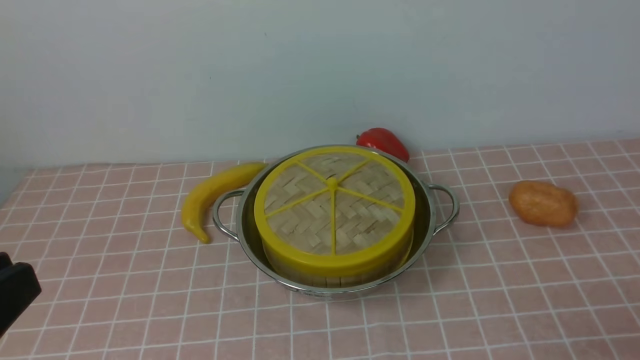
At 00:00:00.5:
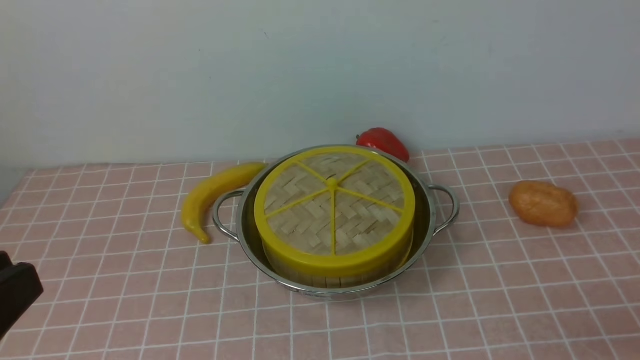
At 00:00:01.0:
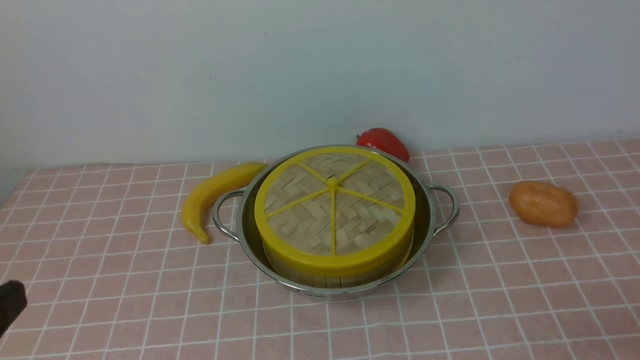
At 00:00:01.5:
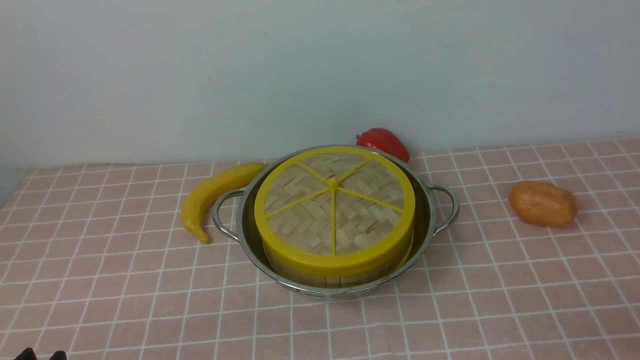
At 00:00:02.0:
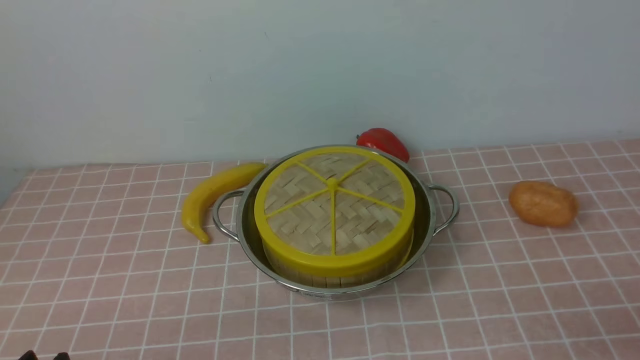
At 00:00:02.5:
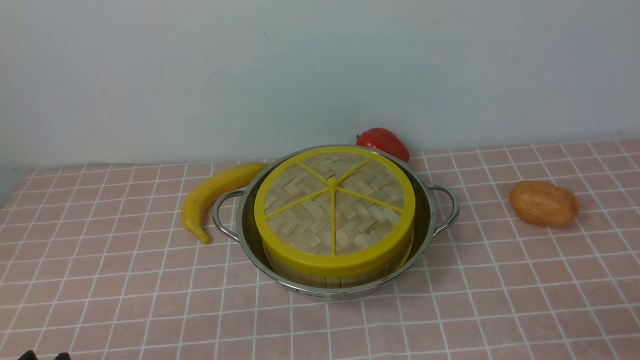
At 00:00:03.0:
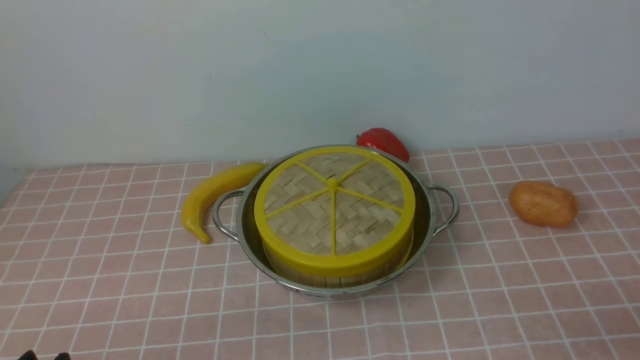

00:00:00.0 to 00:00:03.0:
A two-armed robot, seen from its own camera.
Task of the whole recording: place the steamer in the pot on the pink tablecloth, and put the lid on the steamer.
00:00:00.0 to 00:00:01.5: The left gripper is displaced downward by roughly 15 cm.

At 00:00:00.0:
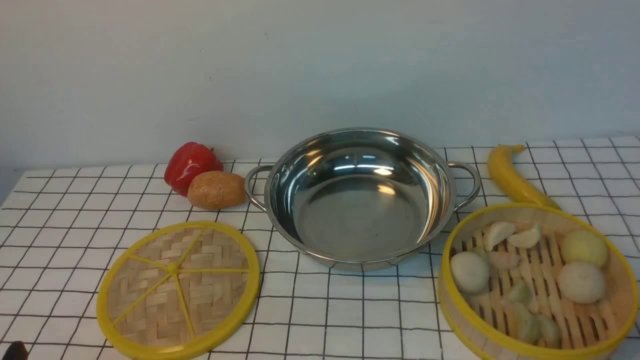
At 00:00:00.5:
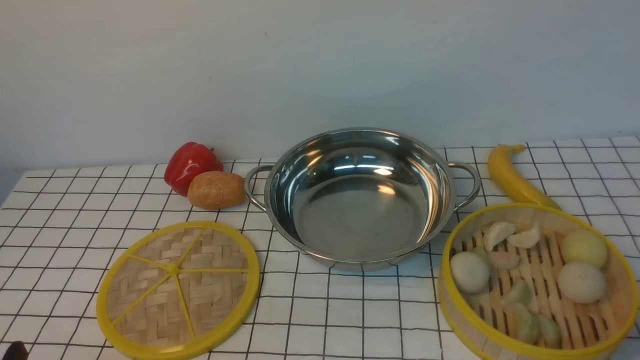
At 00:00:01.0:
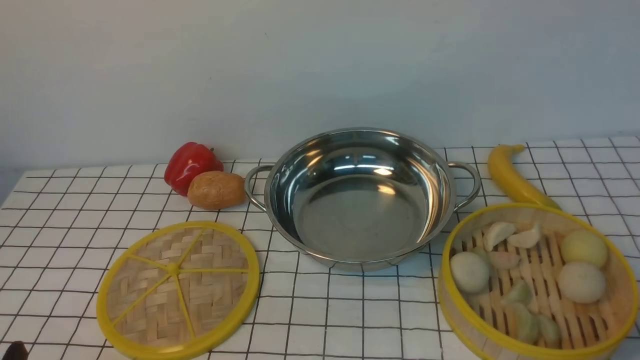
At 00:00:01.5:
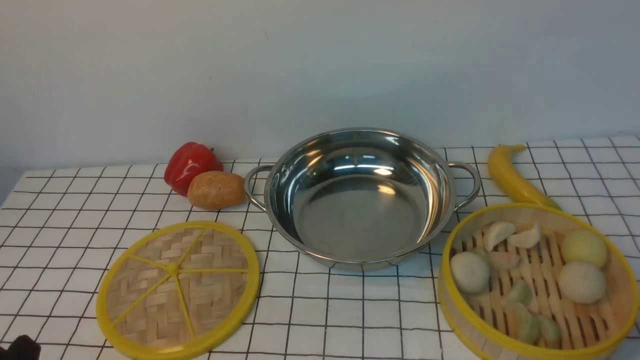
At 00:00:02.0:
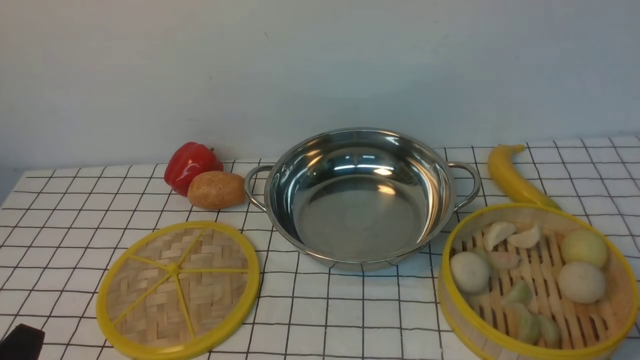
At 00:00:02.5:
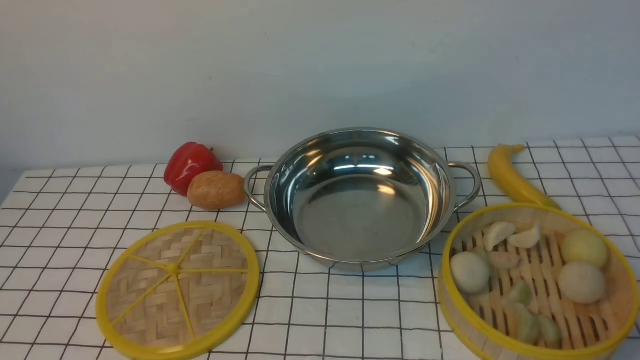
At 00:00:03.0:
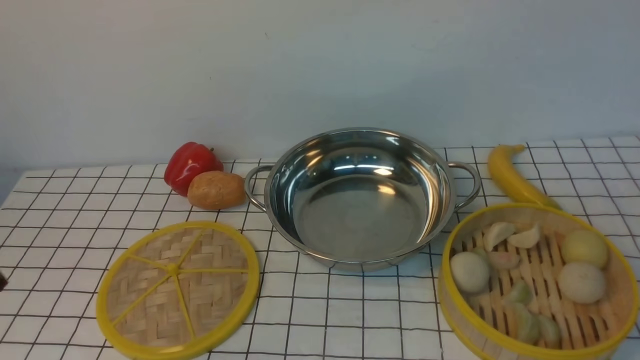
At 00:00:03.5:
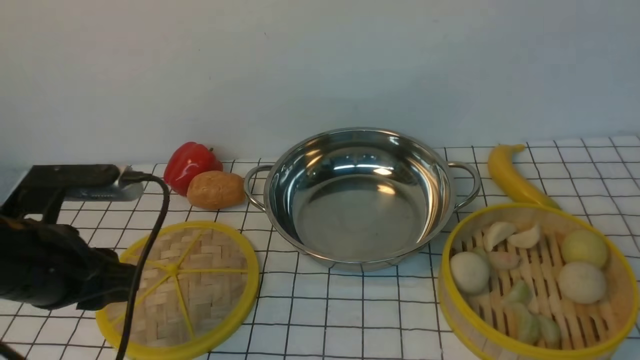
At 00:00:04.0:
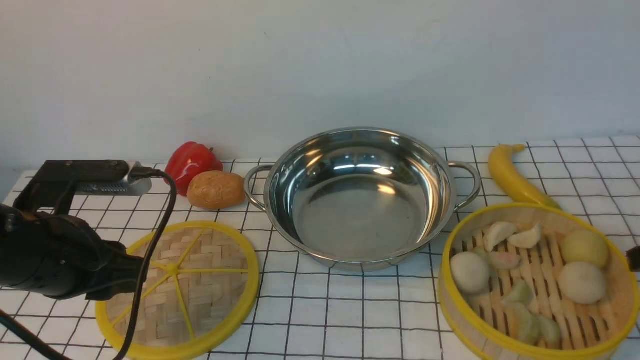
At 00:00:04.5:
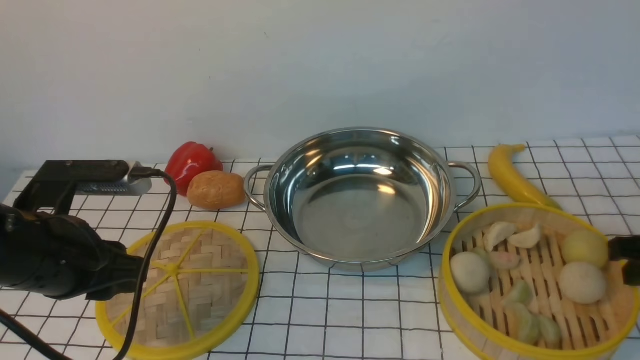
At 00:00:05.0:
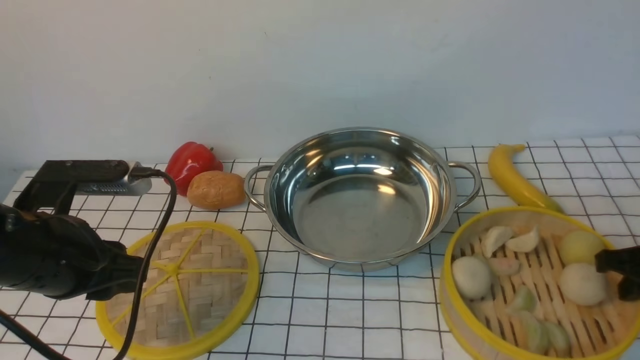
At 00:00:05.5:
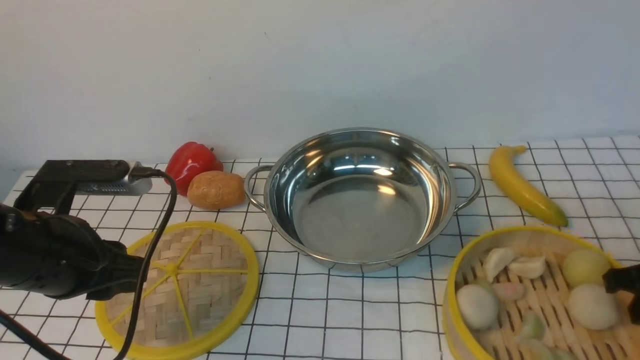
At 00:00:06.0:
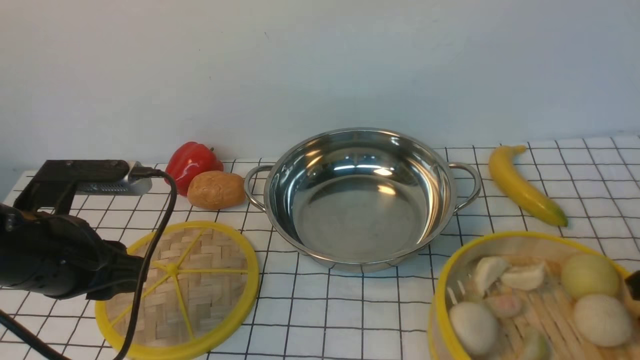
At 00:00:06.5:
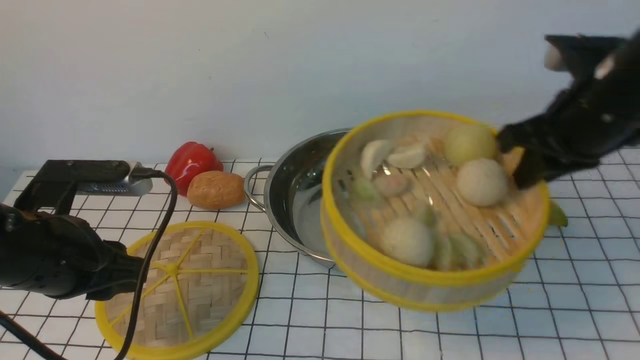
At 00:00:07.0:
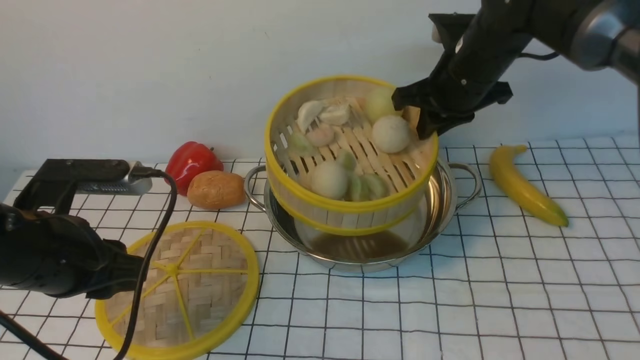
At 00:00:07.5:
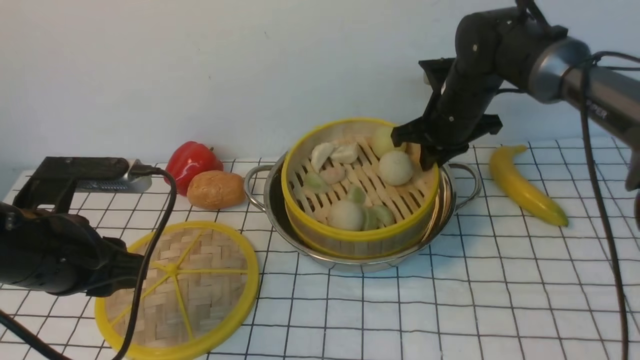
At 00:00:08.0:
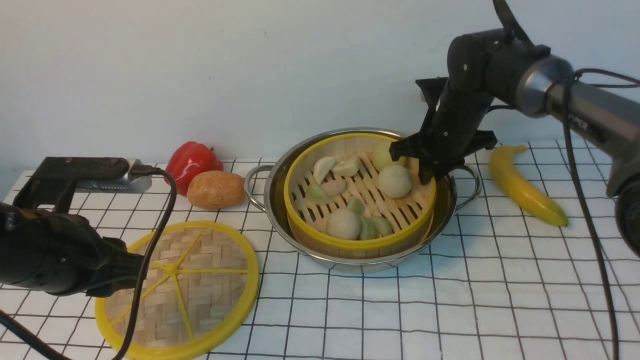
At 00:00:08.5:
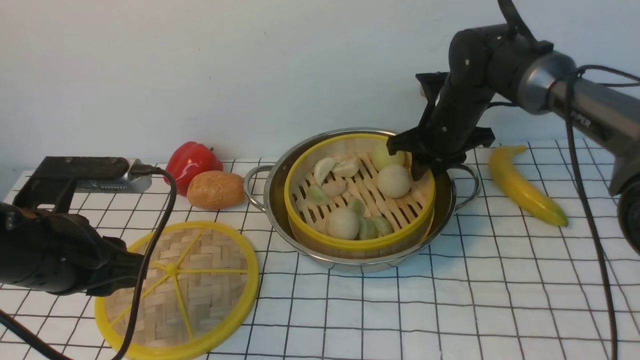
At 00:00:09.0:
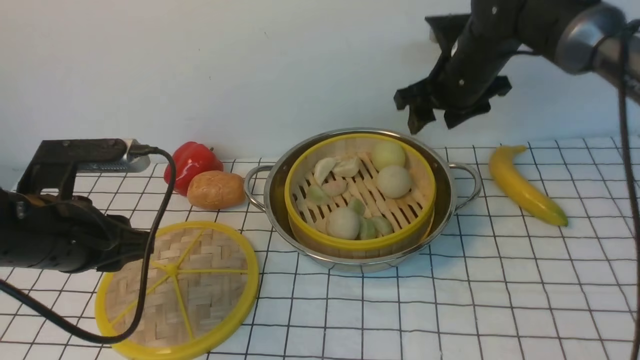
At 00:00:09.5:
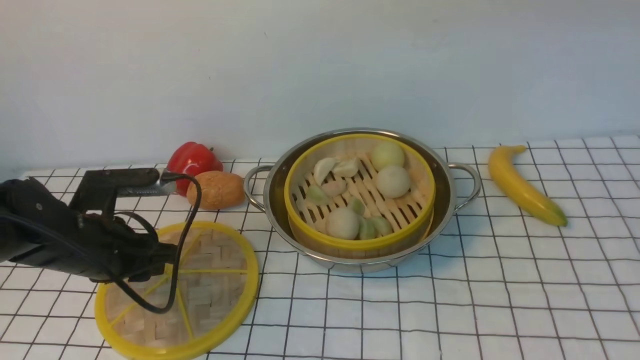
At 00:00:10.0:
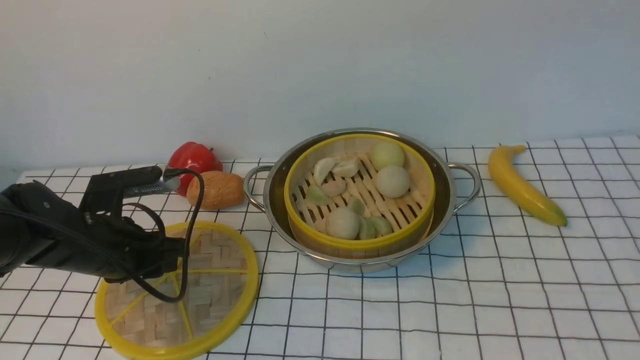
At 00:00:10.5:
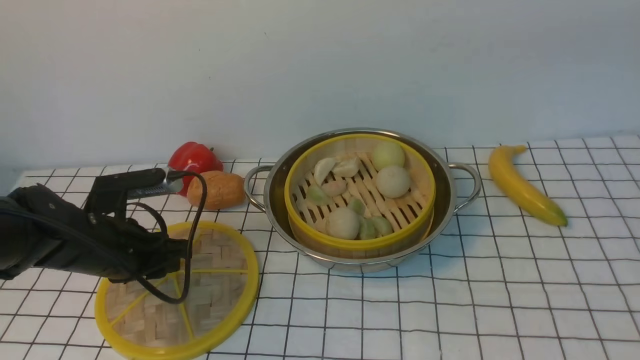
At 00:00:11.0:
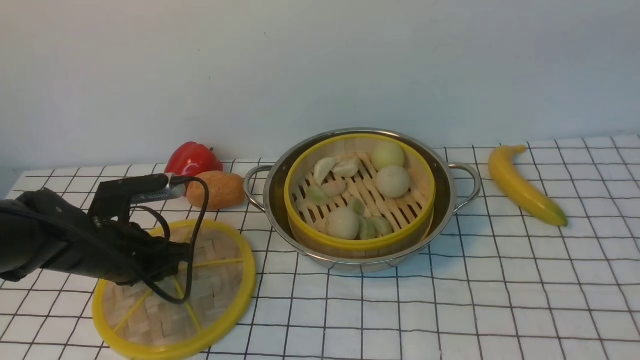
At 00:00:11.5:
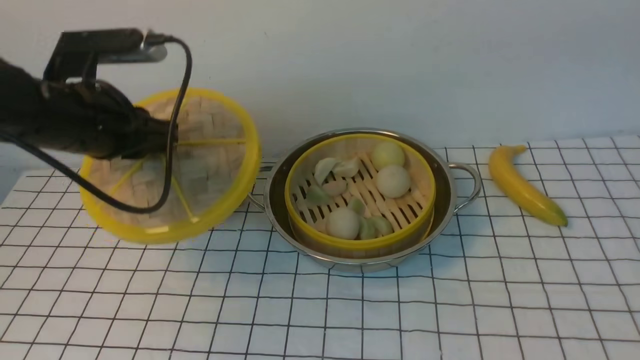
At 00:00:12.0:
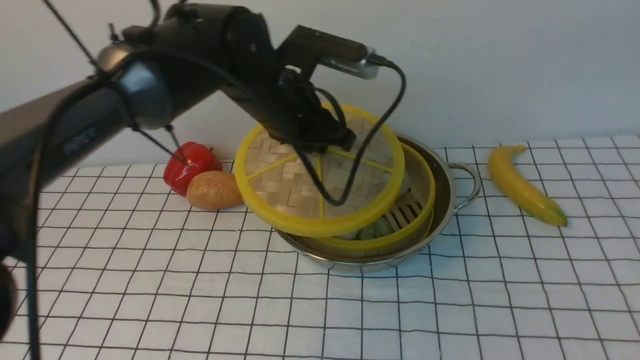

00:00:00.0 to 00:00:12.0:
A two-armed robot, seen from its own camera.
Task of the whole recording: place the steamer in the pot on the white tablecloth, and put the lid on the steamer.
Step, 00:00:00.0 to 00:00:05.5: use the right arm to lift the steamer closest to it.
Step, 00:00:06.0 to 00:00:08.5: use the right arm to put the steamer into the iron steamer pot in the middle.
Step, 00:00:09.0 to 00:00:11.0: use the left arm to lift the lid of the steamer.
00:00:02.0 to 00:00:04.0: The left gripper moves forward, about 20 cm.
00:00:06.0 to 00:00:08.0: The right gripper heads forward and to the left, covering roughly 30 cm.
00:00:08.0 to 00:00:10.0: The right gripper is displaced upward and backward by about 50 cm, and opens, while the left gripper is displaced downward and forward by roughly 10 cm.
00:00:10.0 to 00:00:12.0: The left gripper moves to the right, upward and forward, approximately 25 cm.

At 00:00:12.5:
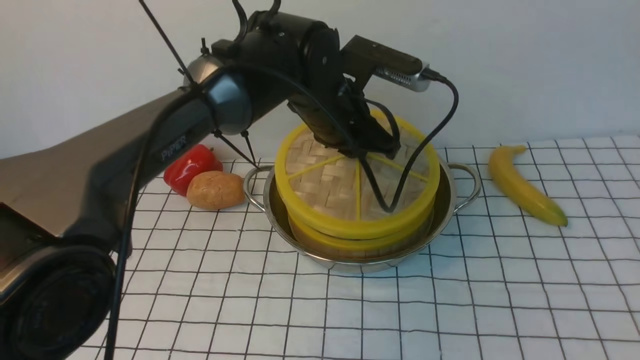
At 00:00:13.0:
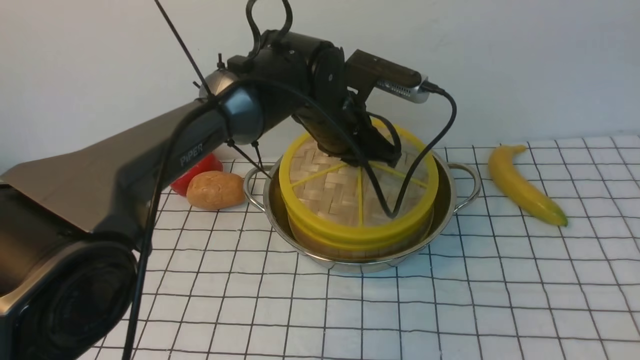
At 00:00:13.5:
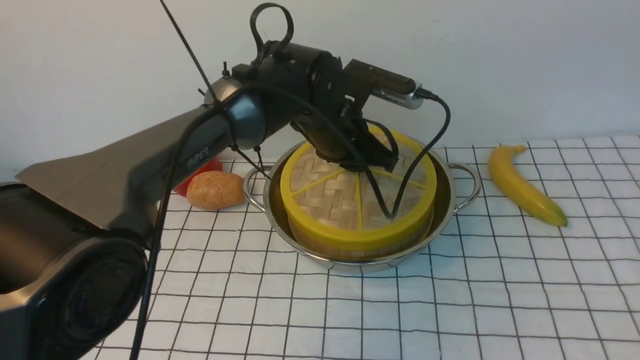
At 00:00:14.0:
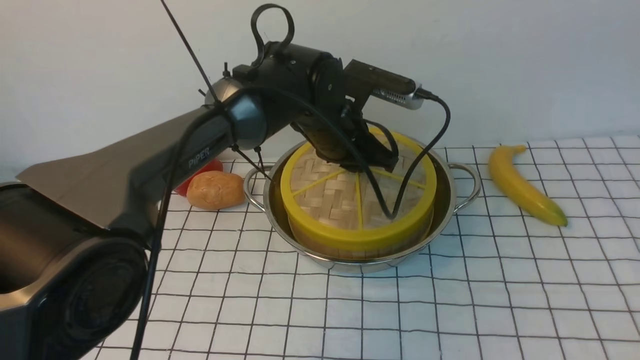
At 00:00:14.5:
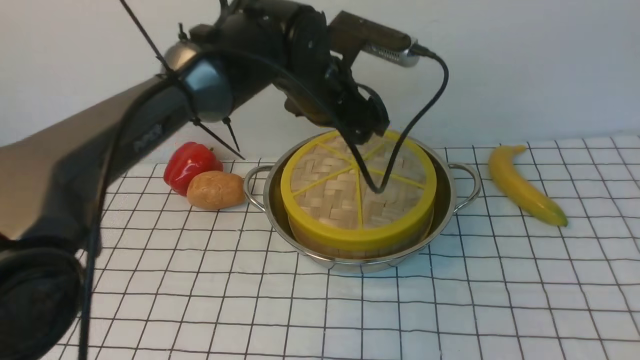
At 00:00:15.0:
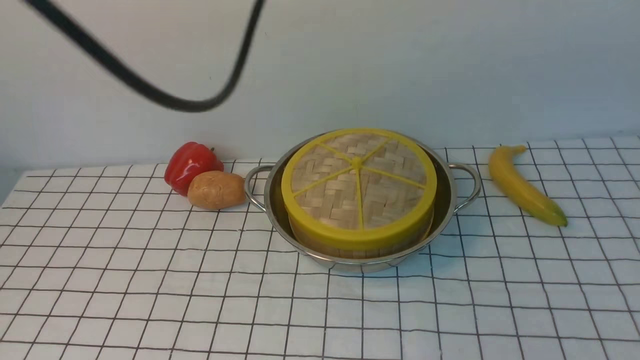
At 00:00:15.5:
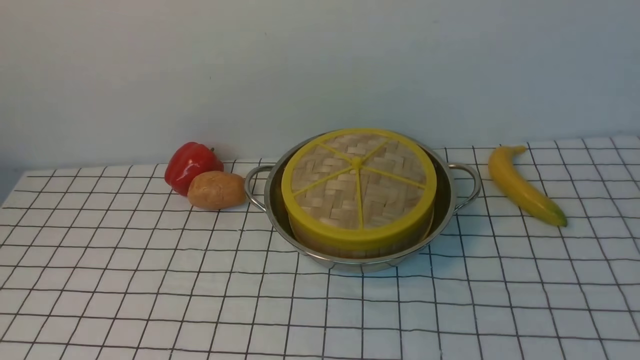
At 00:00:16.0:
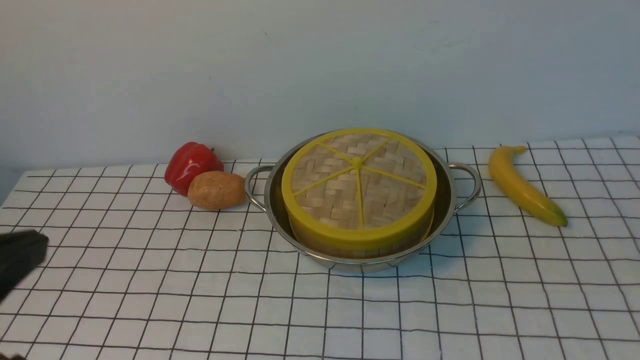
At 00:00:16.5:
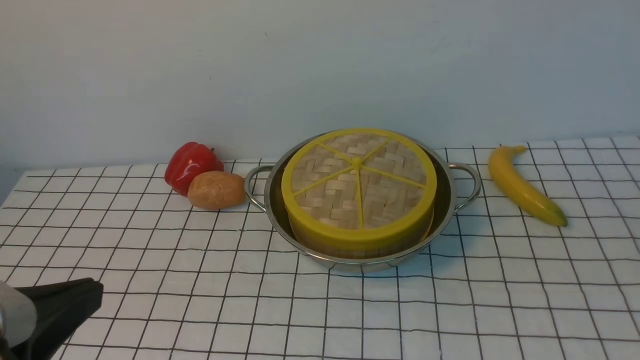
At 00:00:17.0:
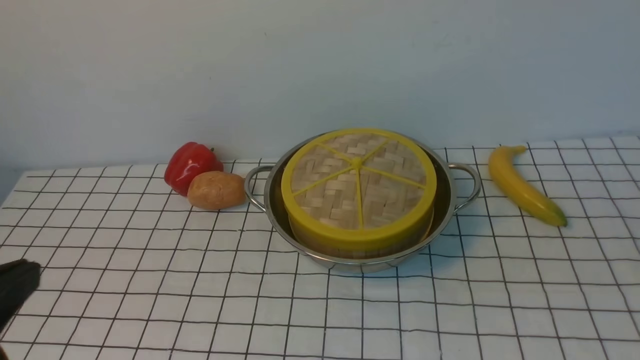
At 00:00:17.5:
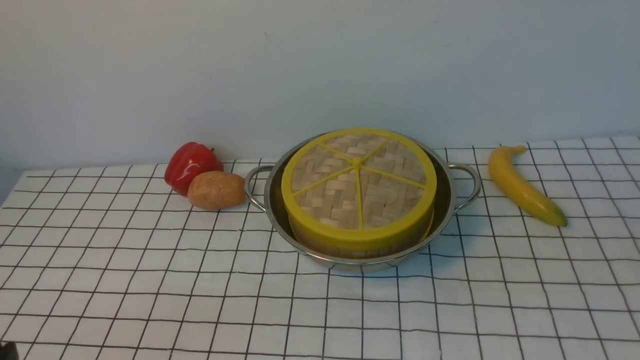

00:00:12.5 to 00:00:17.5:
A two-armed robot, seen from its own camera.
Task of the whole recording: place the steamer in the pot on the white tablecloth, and put the lid on the steamer.
00:00:12.5 to 00:00:15.0: The right gripper closes up; the left gripper heads upward, backward and to the left, covering roughly 30 cm, and opens and closes again.
00:00:15.0 to 00:00:17.5: The left gripper is displaced downward, backward and to the left by approximately 40 cm; the right gripper is displaced downward by some 20 cm.
